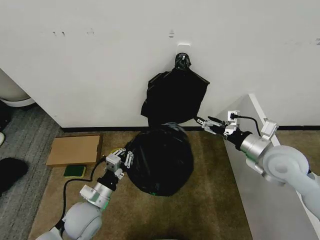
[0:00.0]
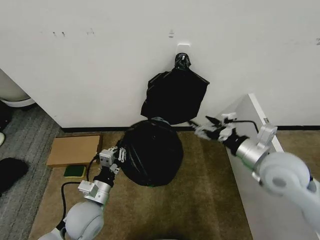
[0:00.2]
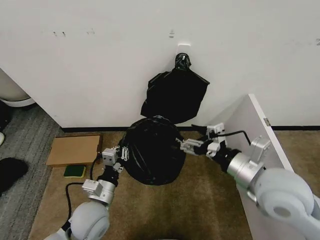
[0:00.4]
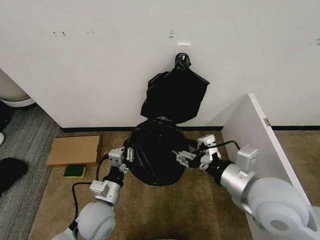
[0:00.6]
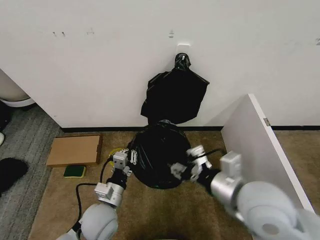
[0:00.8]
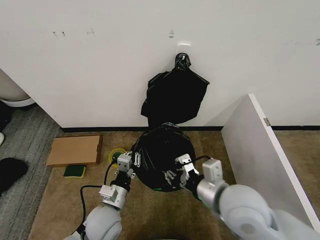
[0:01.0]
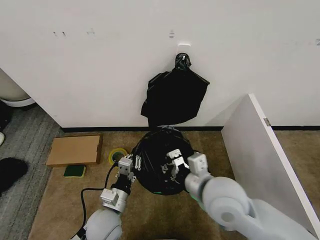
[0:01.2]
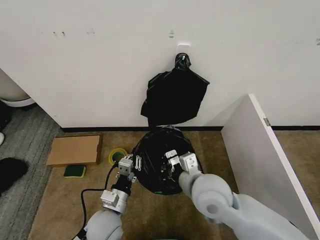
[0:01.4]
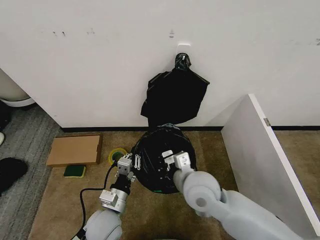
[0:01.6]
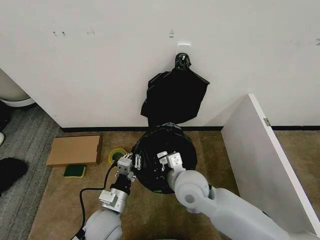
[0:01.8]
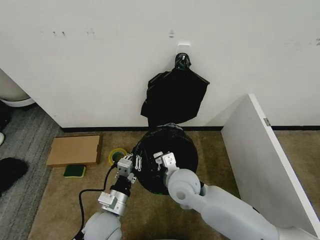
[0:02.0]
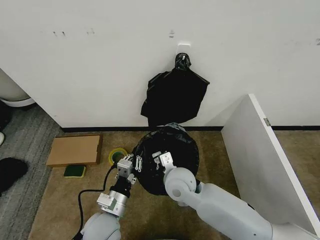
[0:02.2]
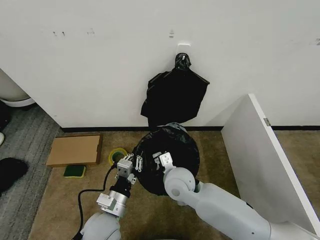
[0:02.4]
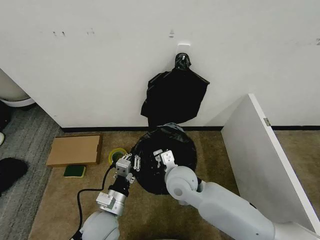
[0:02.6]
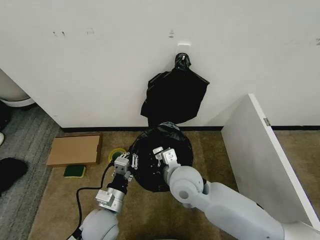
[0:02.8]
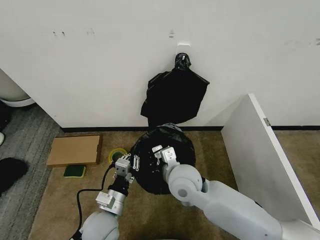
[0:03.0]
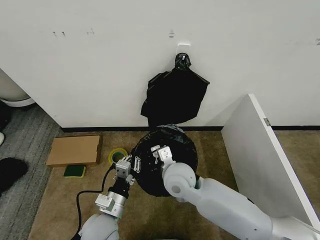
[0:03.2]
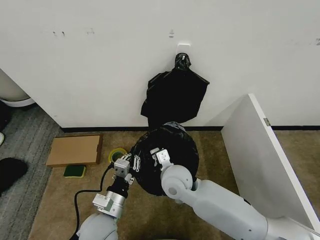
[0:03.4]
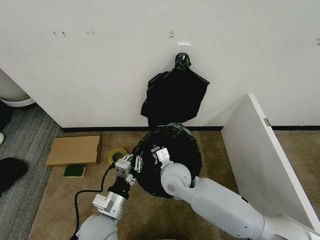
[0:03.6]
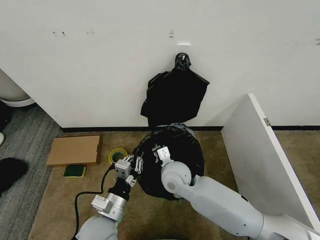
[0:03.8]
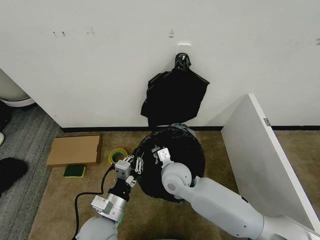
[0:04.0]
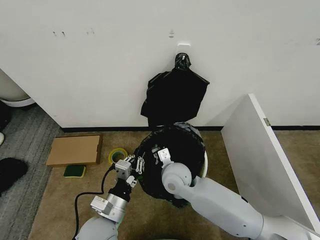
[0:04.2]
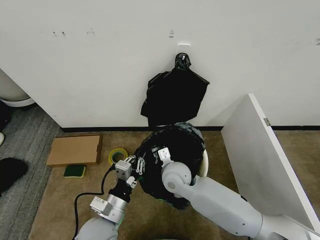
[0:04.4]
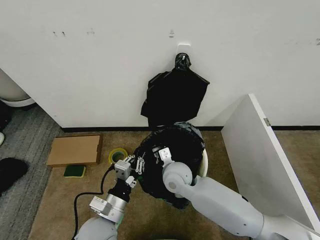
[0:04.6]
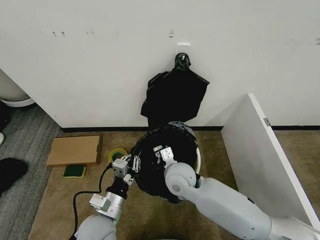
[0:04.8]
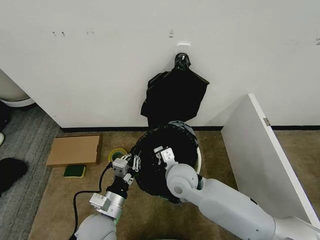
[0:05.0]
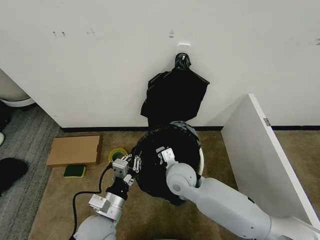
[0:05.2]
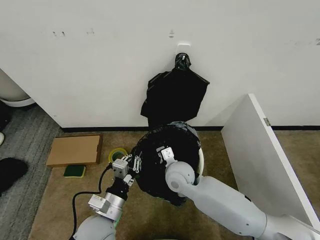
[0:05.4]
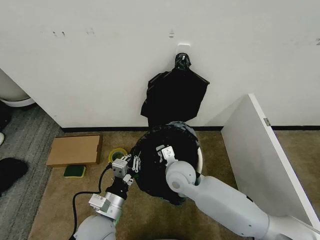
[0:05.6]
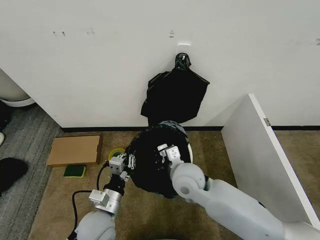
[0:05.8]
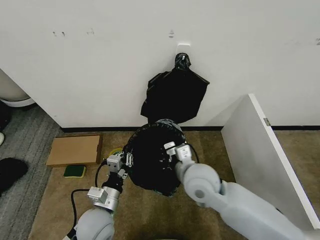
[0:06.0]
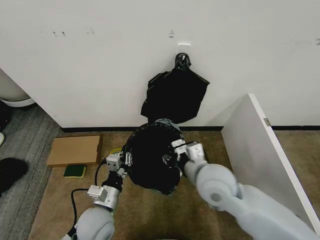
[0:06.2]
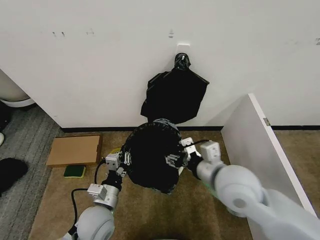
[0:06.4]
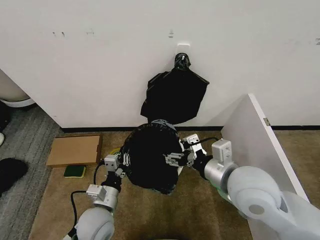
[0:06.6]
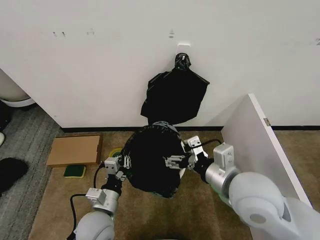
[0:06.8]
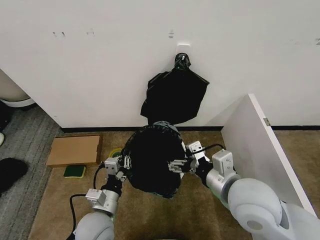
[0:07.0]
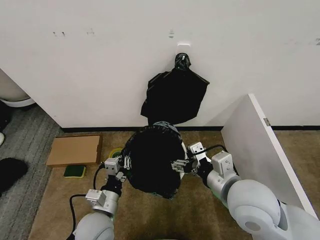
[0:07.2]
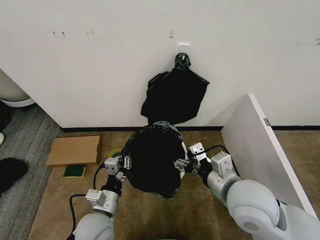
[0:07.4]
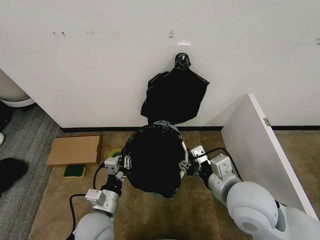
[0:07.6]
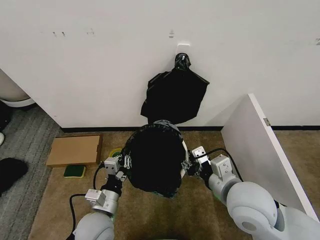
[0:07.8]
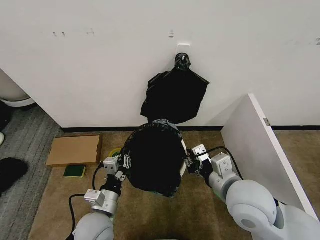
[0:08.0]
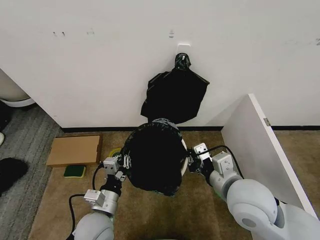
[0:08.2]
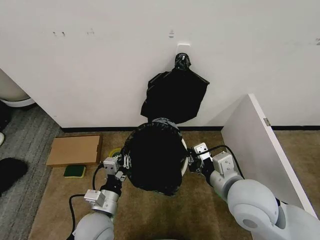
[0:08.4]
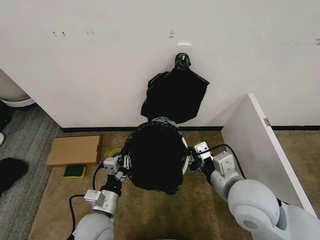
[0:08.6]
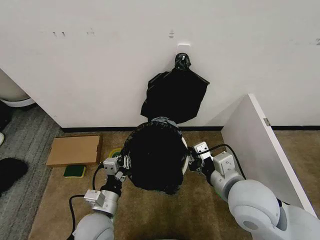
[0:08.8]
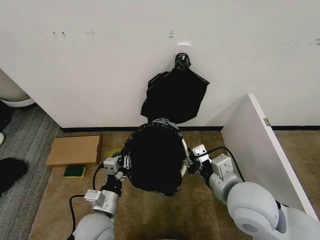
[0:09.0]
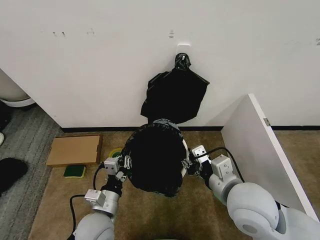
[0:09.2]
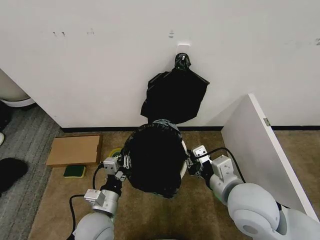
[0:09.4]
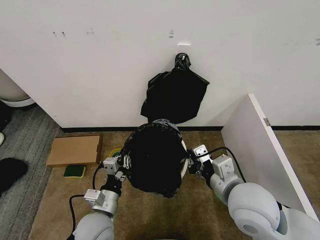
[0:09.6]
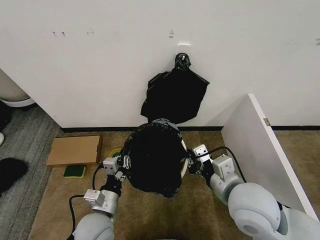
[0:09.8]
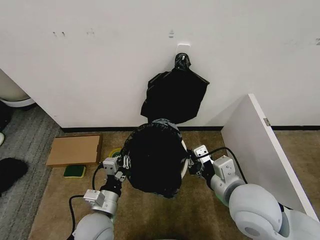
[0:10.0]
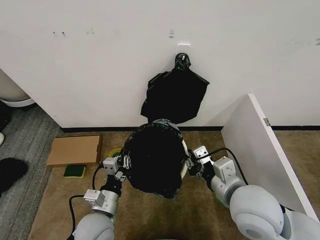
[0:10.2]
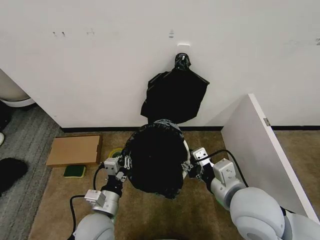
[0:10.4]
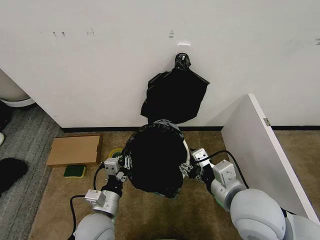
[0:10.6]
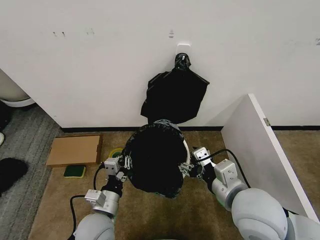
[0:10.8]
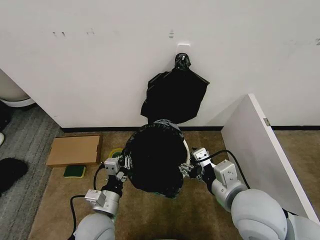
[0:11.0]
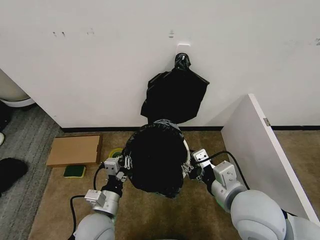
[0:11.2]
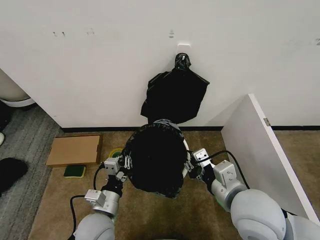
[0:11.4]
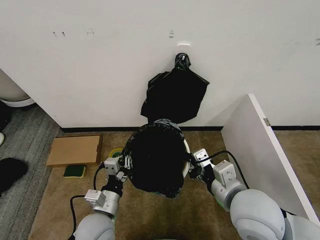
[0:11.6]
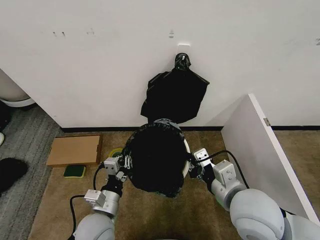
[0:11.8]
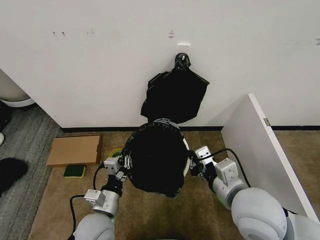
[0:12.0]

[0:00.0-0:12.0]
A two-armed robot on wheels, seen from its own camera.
Task of the whole recording: Place the garbage bag over the trash bin.
0:00.0 to 0:01.6: The right gripper moves to the left, about 20 cm, and closes its fingers. Meanwhile the left gripper goes approximately 5 cm to the right.
0:03.0 to 0:04.4: The right gripper shifts approximately 5 cm downward and forward.
0:04.4 to 0:06.0: The right gripper goes some 10 cm upward, backward and to the right.
0:06.0 to 0:07.6: The right gripper shifts about 10 cm to the right and backward, and opens, then closes once more.
0:07.6 to 0:09.0: Both grippers stay about where they are.
0:09.0 to 0:10.4: The grippers make only small movements.
0:10.4 to 0:12.0: The right gripper closes its fingers.

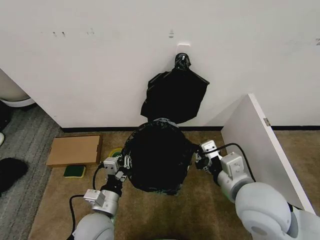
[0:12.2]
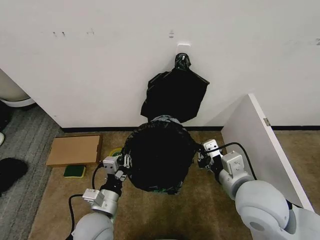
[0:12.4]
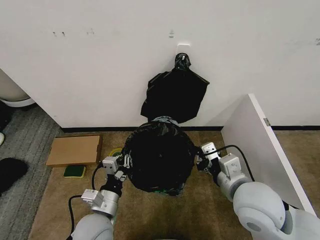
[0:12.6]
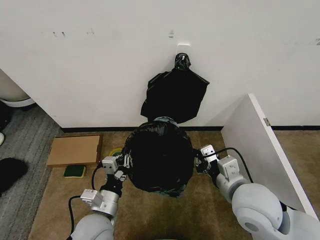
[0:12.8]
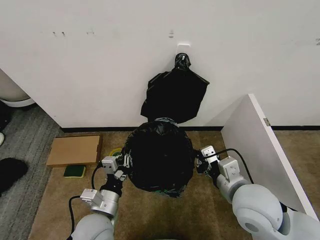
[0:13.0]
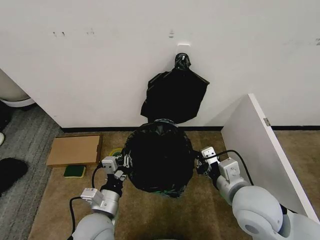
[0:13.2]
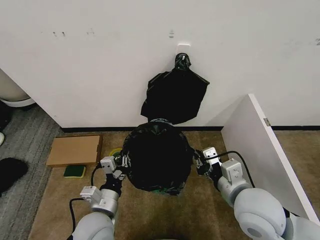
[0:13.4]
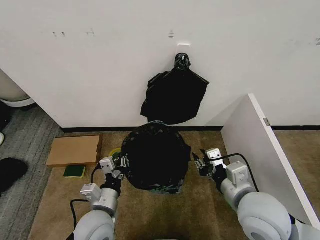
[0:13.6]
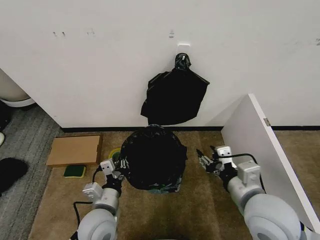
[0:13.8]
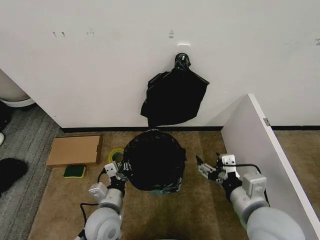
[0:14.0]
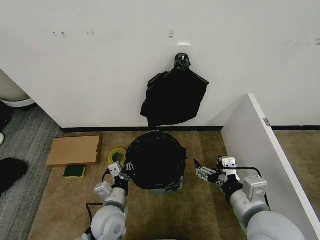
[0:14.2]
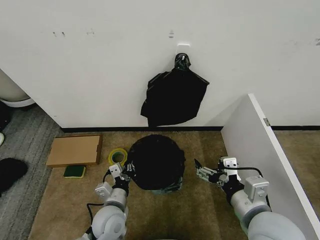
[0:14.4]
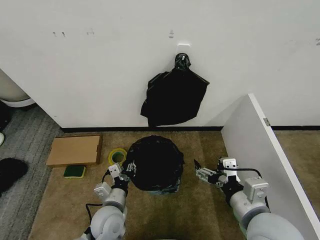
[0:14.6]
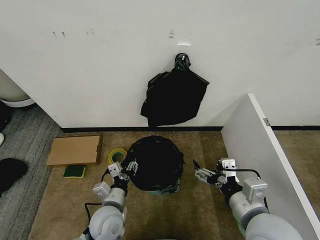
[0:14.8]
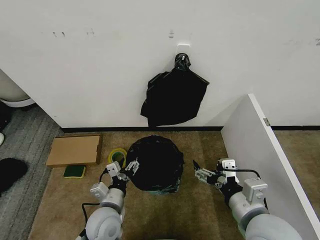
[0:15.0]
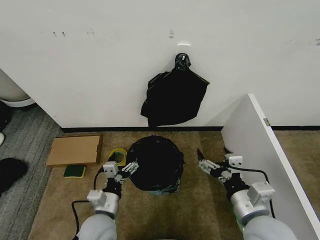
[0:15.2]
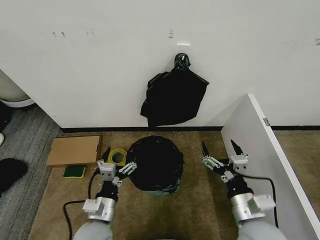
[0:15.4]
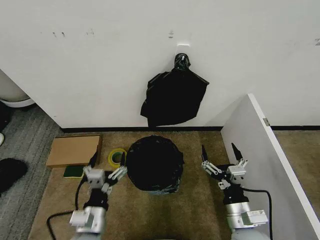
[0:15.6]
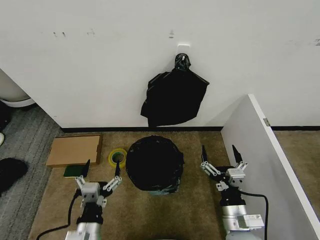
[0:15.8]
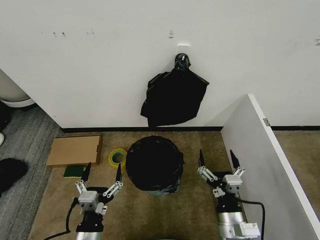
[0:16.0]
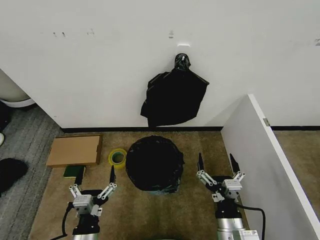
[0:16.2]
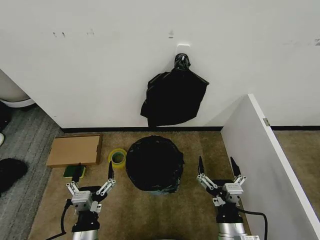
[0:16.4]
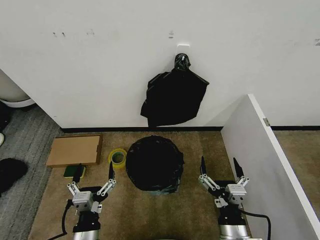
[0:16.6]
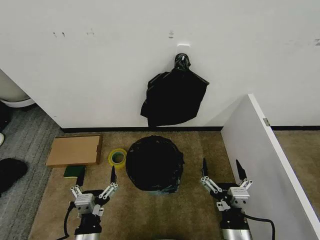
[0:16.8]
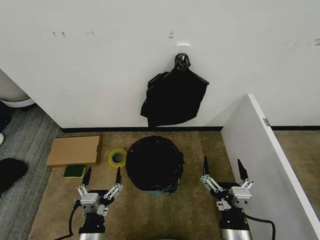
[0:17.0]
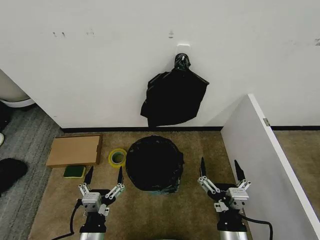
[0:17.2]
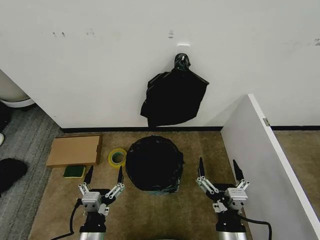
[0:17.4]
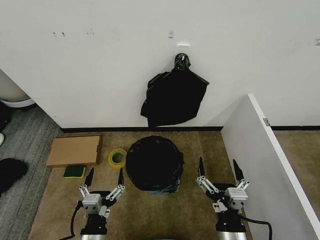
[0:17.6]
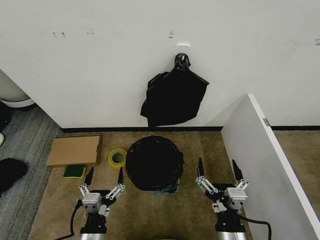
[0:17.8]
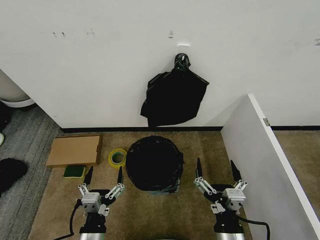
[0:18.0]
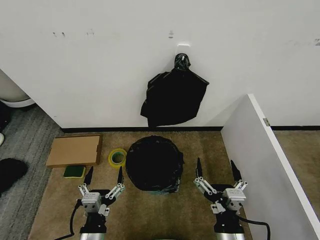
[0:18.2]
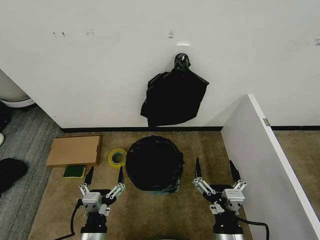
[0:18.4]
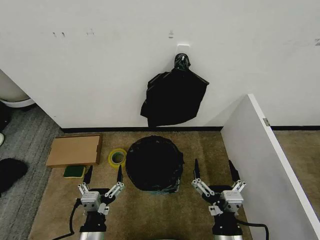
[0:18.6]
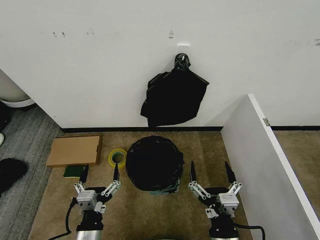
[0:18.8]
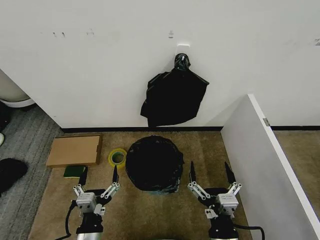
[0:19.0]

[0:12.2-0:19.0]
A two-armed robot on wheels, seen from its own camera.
Task of the whole recording: Place the garbage bag over the trash bin.
0:12.2 to 0:13.6: The right gripper opens its fingers.
0:13.6 to 0:15.0: The left gripper opens up, while the right gripper opens up.
0:15.0 to 0:16.2: The right gripper travels downward by approximately 10 cm. Meanwhile the left gripper is displaced backward by some 10 cm.
0:16.2 to 0:17.6: The right gripper changes place by some 5 cm.
0:17.6 to 0:19.0: There are only small adjustments of the grippers.

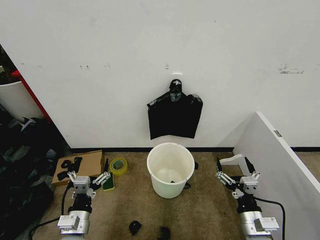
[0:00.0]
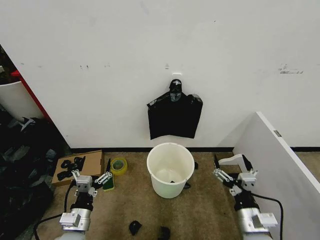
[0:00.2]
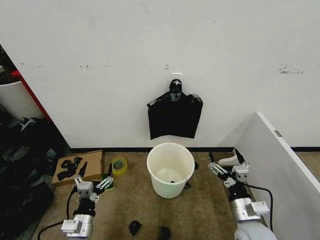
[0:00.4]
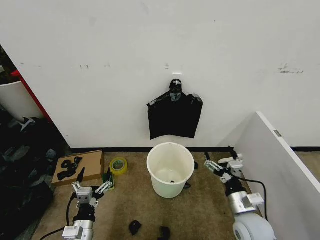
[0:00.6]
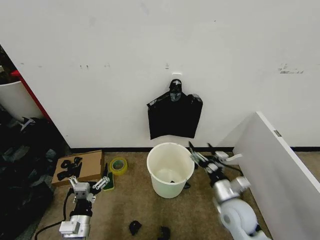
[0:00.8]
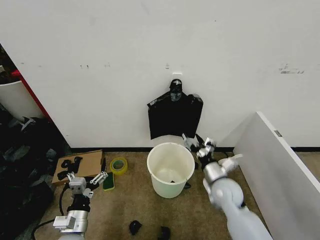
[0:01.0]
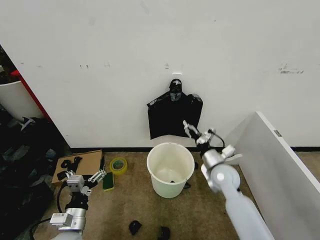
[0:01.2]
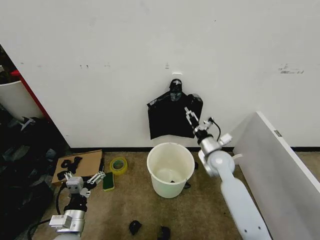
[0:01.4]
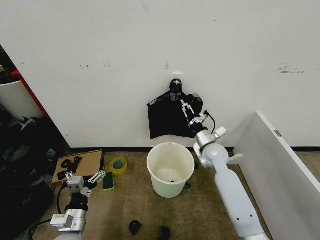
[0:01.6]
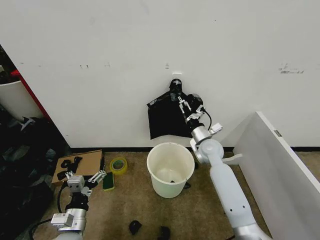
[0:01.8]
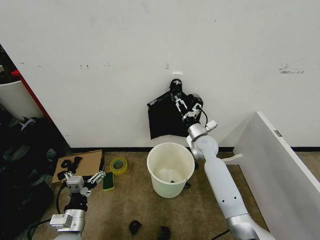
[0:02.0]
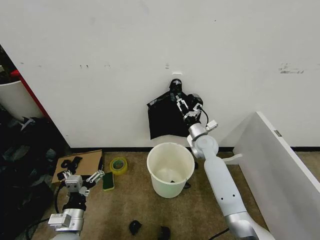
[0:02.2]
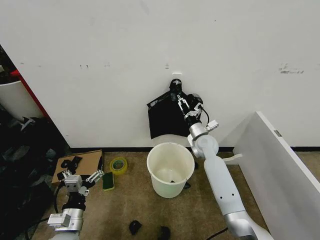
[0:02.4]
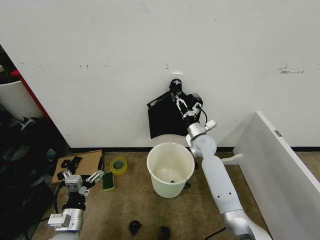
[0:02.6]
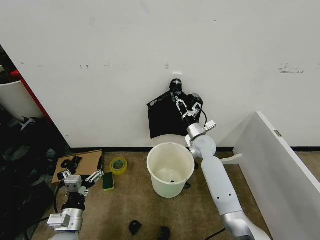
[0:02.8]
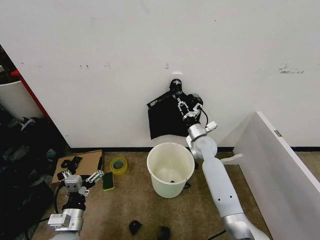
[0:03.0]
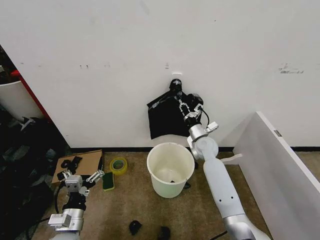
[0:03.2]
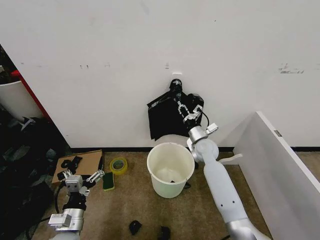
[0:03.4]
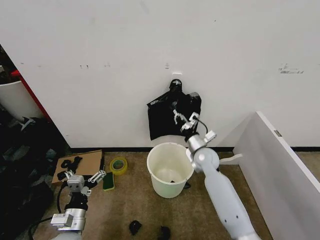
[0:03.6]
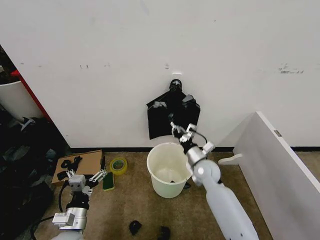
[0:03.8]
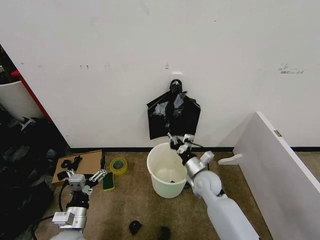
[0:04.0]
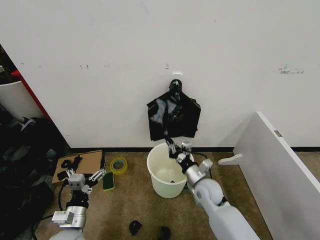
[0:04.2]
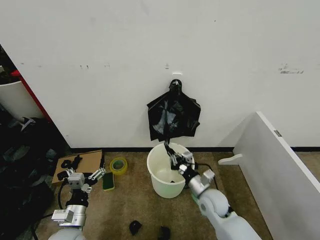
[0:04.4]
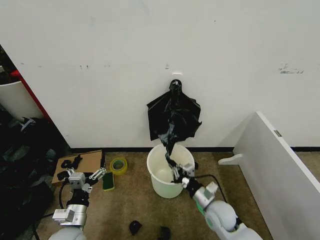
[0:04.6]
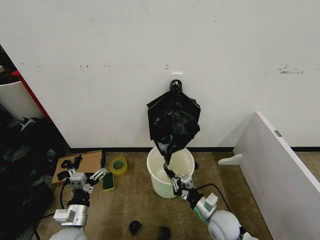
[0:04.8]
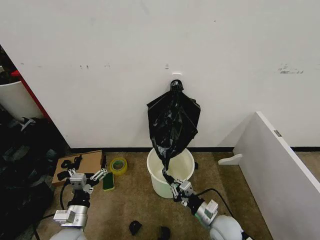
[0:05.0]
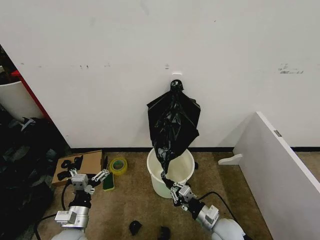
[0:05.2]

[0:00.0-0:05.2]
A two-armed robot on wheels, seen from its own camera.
Task of the whole recording: Place the garbage bag over the trash bin.
0:01.8 to 0:03.4: The right gripper closes.
0:03.4 to 0:05.2: The right gripper shifts about 30 cm backward and downward.
